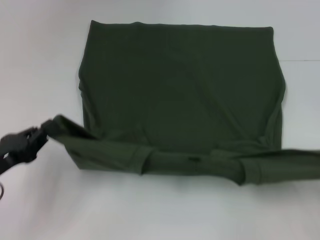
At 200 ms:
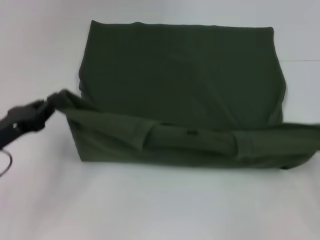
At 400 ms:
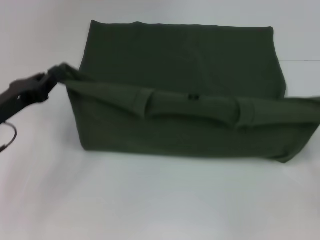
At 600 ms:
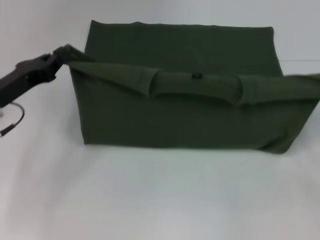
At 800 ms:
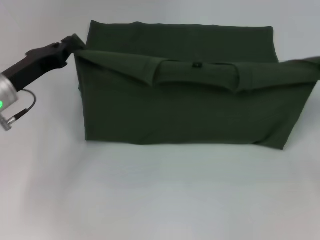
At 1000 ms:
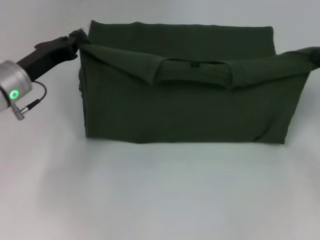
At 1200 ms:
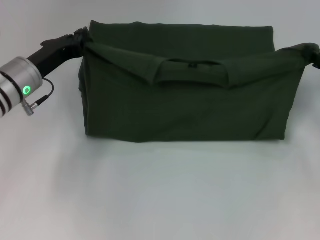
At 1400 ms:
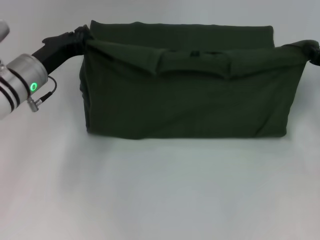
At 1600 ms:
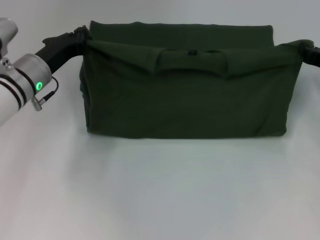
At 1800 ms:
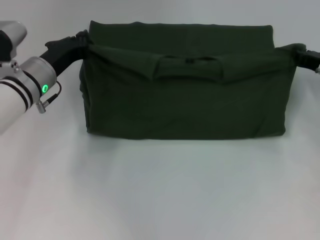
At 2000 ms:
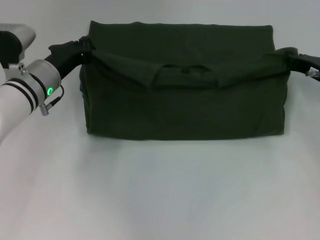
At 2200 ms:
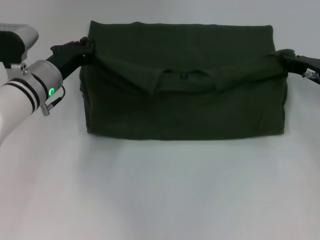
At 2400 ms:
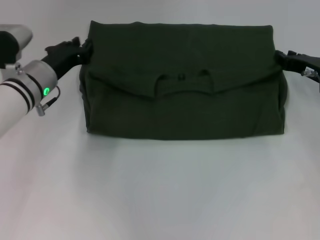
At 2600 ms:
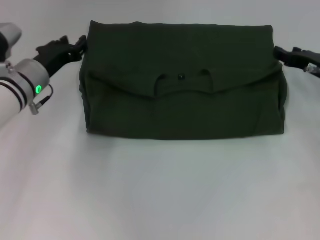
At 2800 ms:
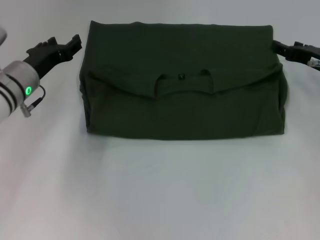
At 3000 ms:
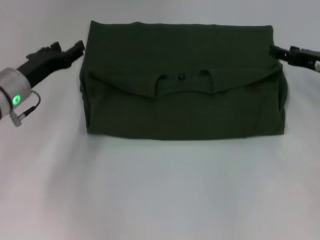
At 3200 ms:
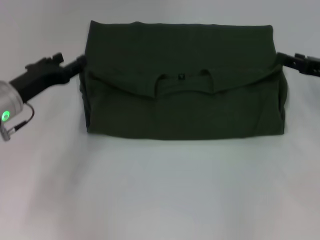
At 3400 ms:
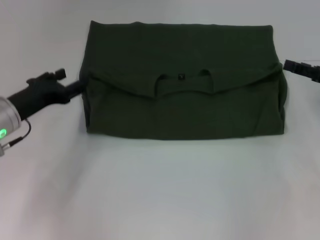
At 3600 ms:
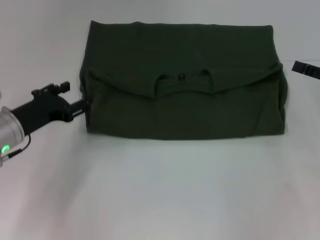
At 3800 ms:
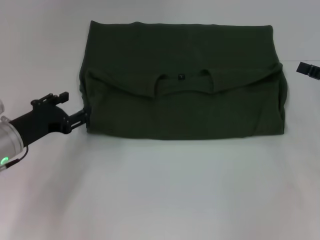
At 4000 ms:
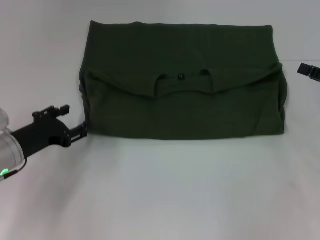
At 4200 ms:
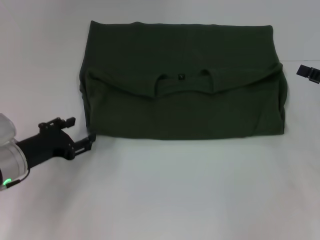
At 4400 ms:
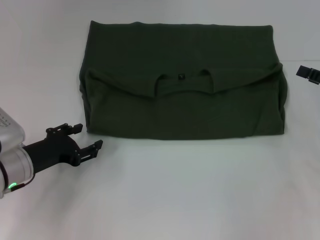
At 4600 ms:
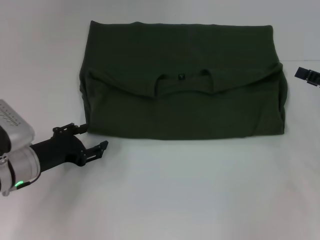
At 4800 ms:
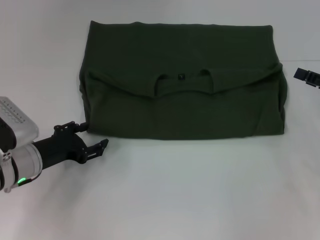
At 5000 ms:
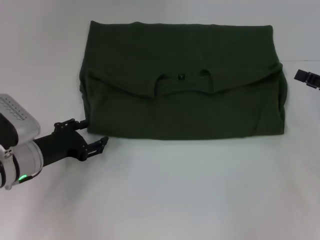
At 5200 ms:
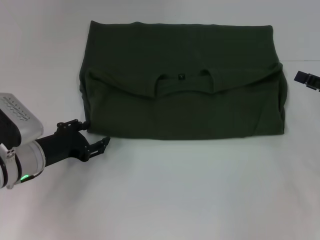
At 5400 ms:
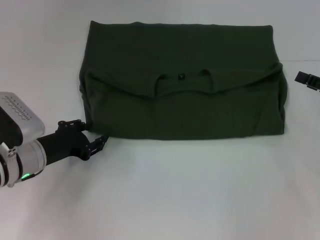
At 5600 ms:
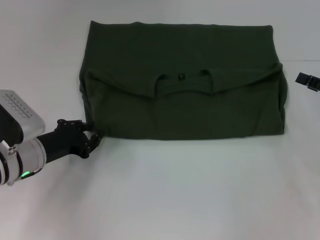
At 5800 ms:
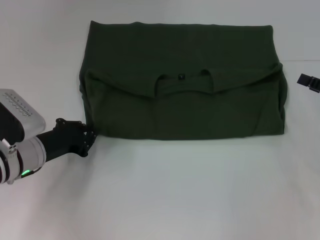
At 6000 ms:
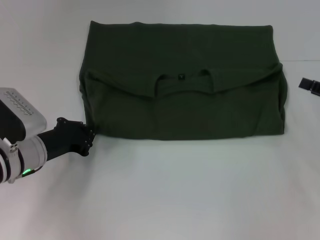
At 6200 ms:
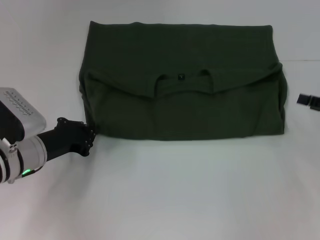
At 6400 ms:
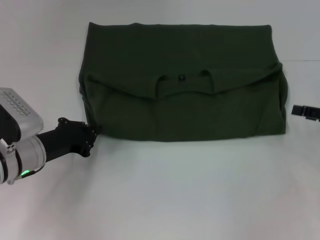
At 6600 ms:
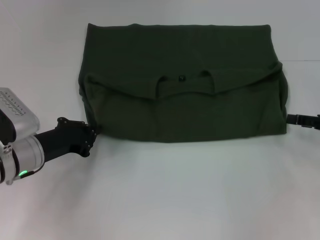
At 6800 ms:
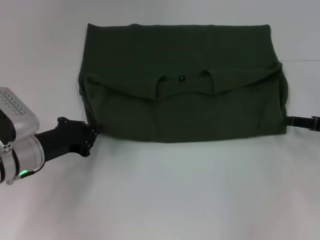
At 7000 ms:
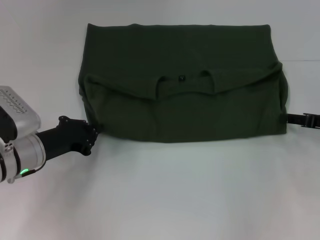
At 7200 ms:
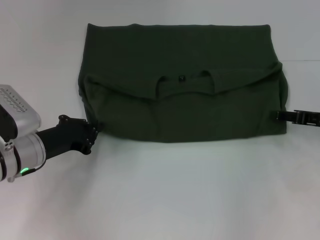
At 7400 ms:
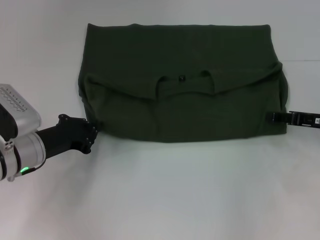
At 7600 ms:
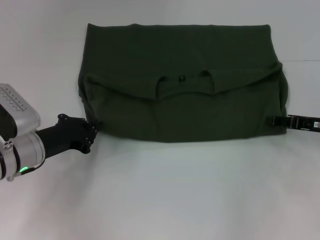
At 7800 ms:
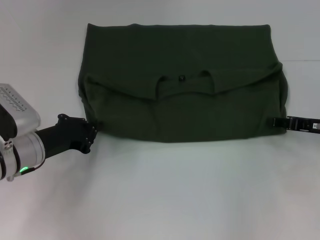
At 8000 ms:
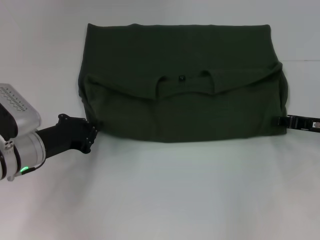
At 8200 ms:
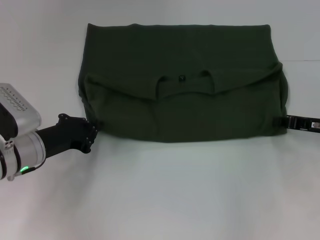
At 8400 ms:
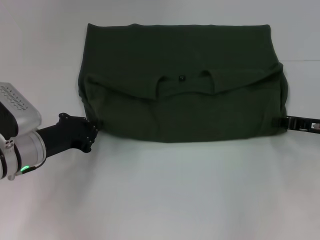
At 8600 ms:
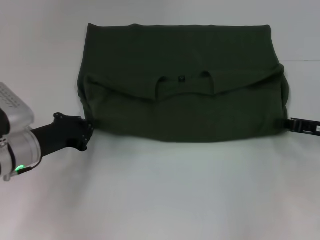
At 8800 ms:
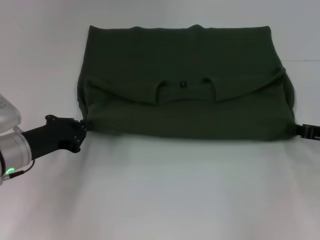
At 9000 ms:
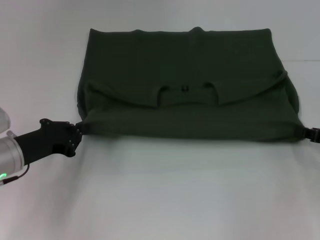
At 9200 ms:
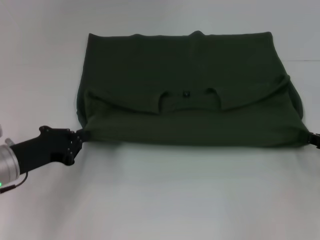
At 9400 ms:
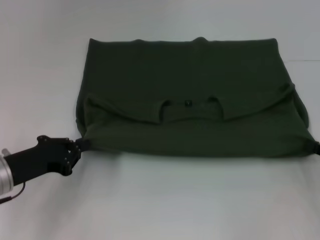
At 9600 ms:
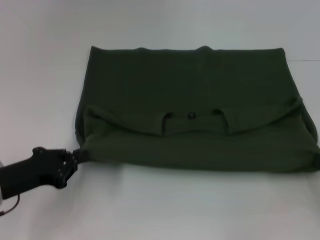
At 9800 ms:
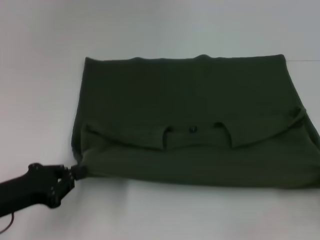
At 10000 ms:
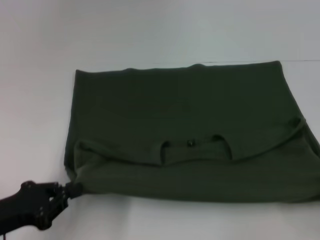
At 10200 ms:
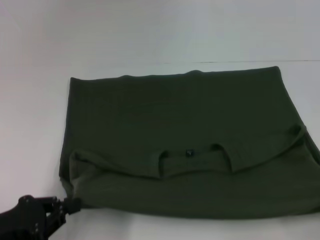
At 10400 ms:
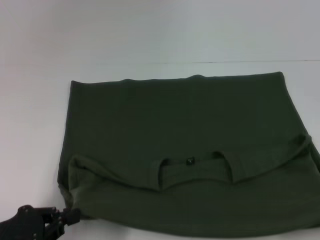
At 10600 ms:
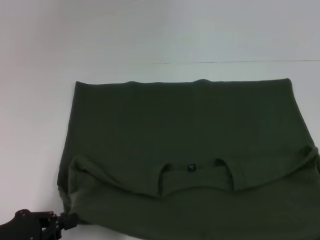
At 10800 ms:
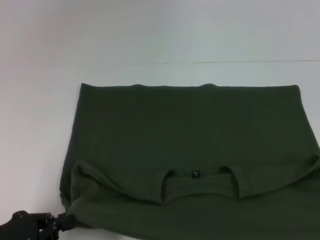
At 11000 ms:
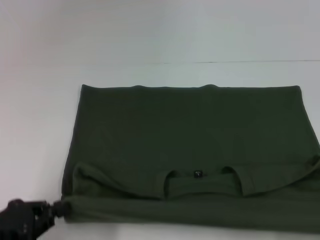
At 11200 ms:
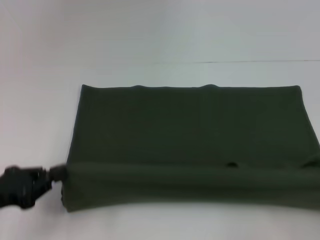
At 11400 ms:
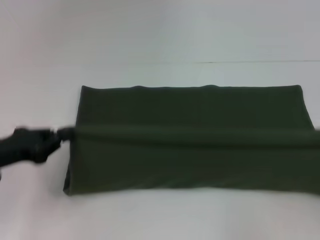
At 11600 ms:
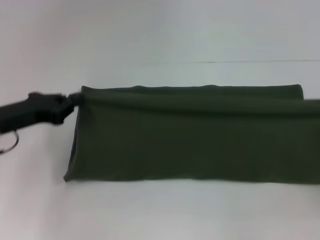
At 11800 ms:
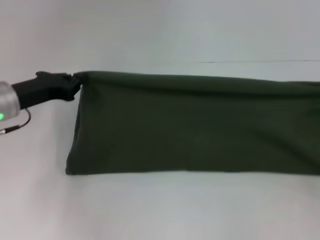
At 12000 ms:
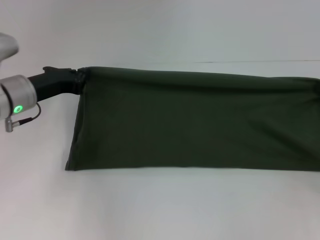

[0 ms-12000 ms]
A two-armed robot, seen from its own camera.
Step, 0 ms to 2600 ms: Fold the clothes with your left hand.
Step, 0 ms to 2600 ms: Fold the clothes with your right hand.
Step, 2800 ms to 10200 ms: Pull the clothes with your left hand.
Step, 2800 ms to 10200 ms: Pull the clothes with your right hand.
0 ms to 1600 ms: The right gripper moves forward, roughly 20 cm. Meanwhile the left gripper shifts some 20 cm forward and to the right.
1600 ms to 3000 ms: The right gripper opens its fingers. Meanwhile the left gripper opens.
3000 ms to 4400 ms: The left gripper travels backward and downward by some 10 cm; the right gripper is displaced backward and to the right by some 10 cm.
4400 ms to 6000 ms: The left gripper closes its fingers.
6000 ms to 7600 ms: The right gripper changes place by approximately 5 cm.
7600 ms to 9000 ms: The right gripper changes place by about 5 cm, and closes up.
9000 ms to 10400 ms: Both grippers travel together backward, about 15 cm.
10400 ms to 12000 ms: Both grippers move forward, roughly 20 cm.

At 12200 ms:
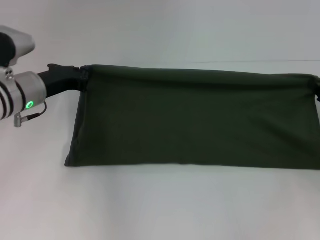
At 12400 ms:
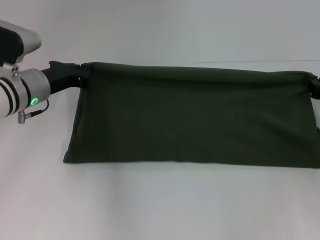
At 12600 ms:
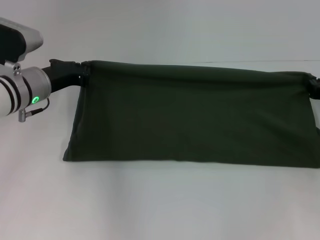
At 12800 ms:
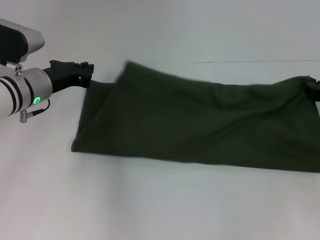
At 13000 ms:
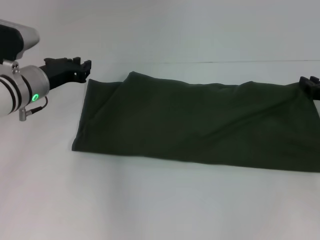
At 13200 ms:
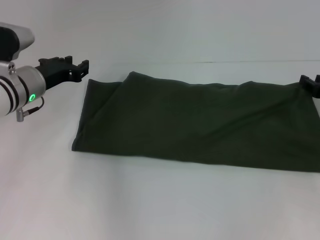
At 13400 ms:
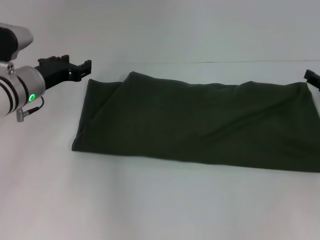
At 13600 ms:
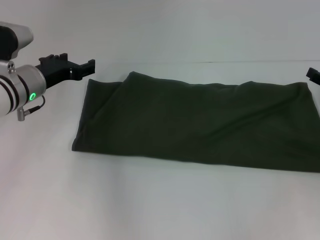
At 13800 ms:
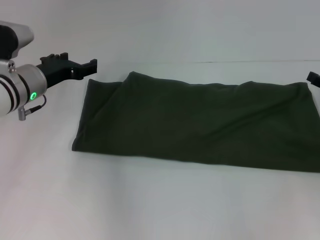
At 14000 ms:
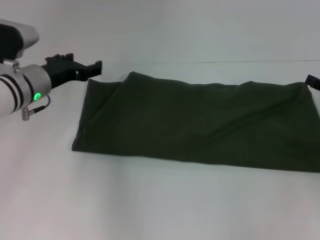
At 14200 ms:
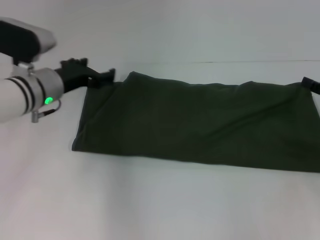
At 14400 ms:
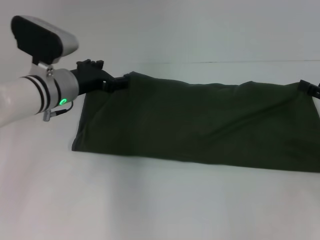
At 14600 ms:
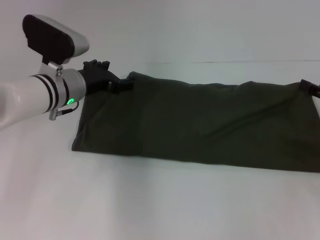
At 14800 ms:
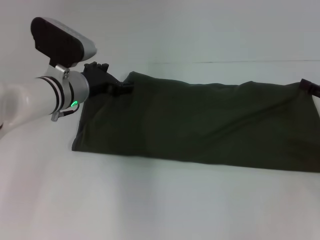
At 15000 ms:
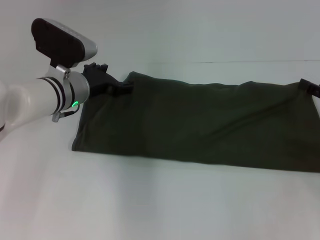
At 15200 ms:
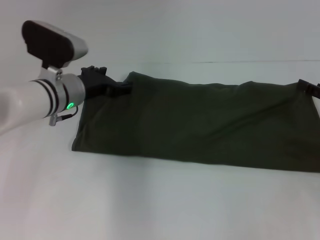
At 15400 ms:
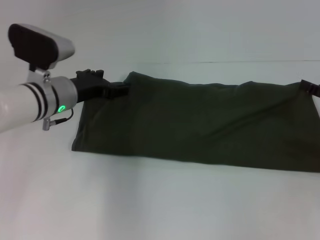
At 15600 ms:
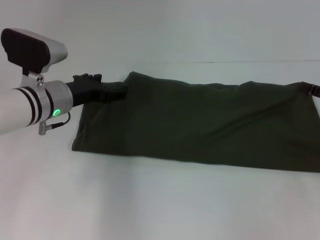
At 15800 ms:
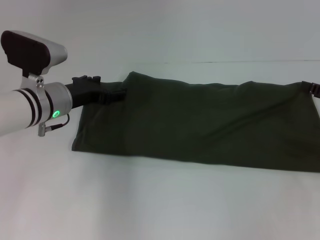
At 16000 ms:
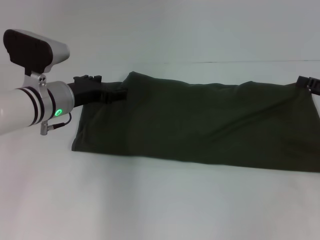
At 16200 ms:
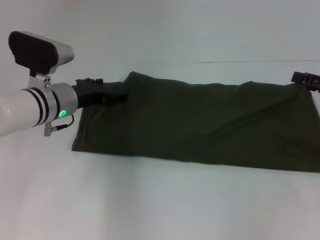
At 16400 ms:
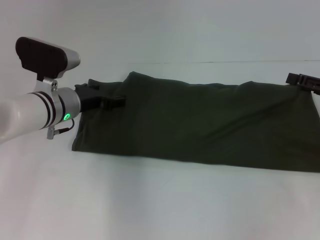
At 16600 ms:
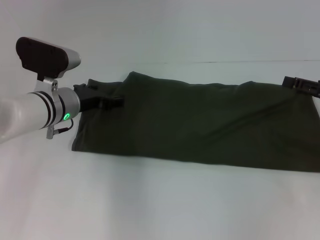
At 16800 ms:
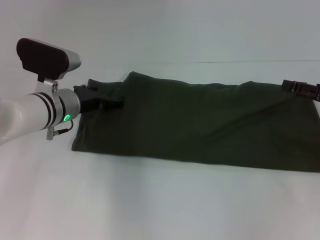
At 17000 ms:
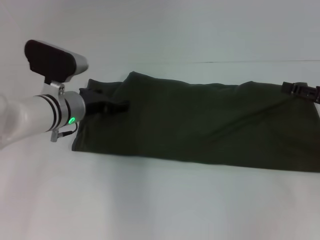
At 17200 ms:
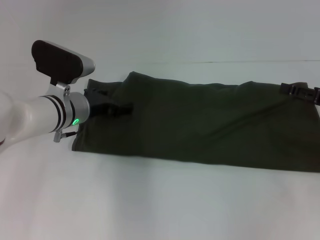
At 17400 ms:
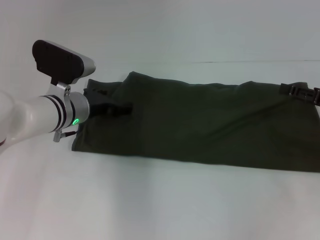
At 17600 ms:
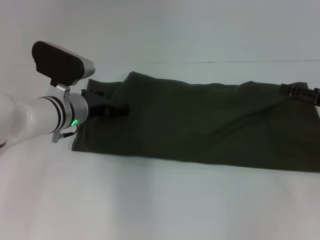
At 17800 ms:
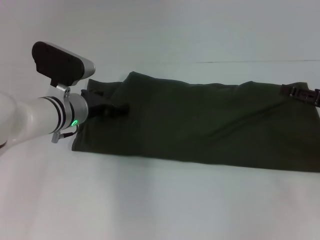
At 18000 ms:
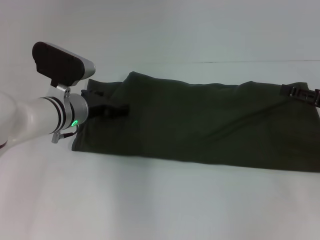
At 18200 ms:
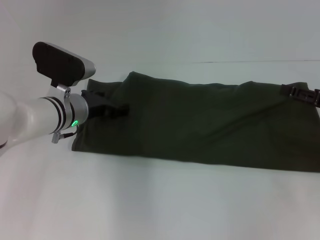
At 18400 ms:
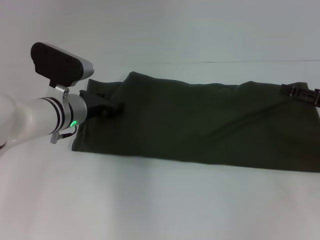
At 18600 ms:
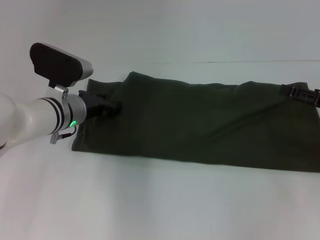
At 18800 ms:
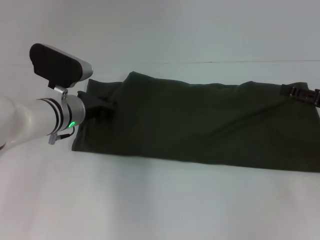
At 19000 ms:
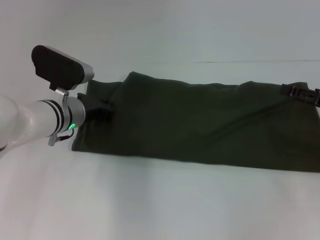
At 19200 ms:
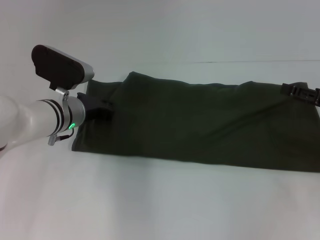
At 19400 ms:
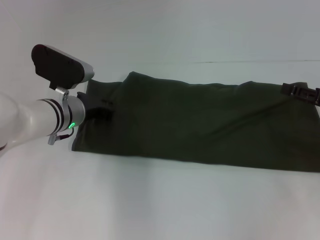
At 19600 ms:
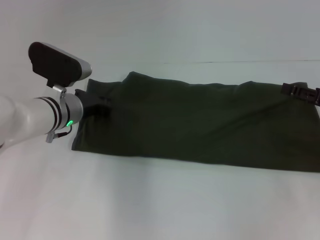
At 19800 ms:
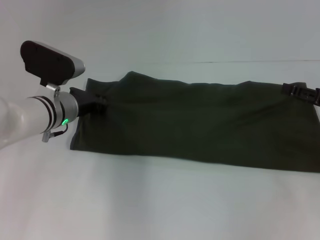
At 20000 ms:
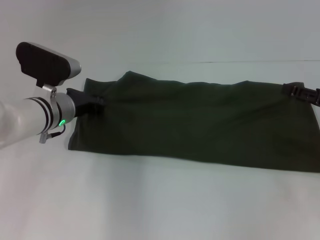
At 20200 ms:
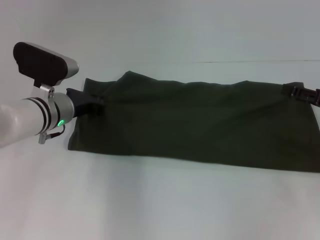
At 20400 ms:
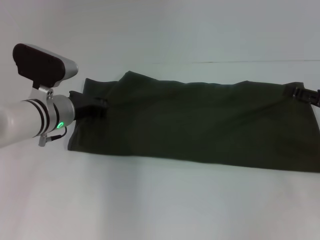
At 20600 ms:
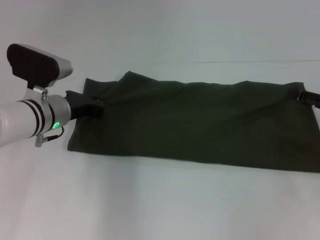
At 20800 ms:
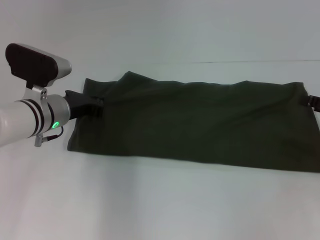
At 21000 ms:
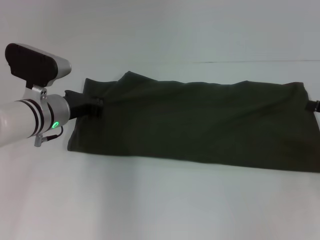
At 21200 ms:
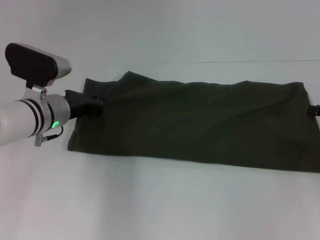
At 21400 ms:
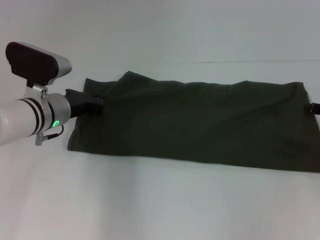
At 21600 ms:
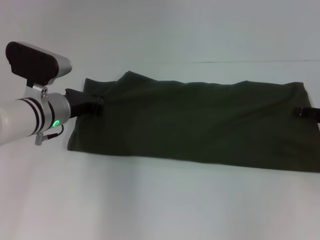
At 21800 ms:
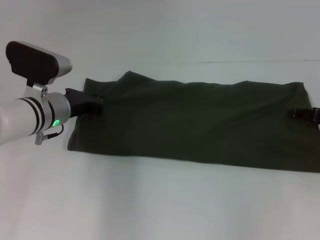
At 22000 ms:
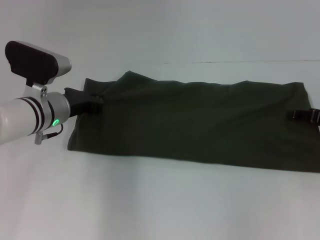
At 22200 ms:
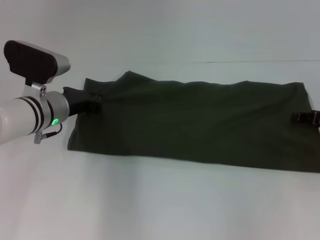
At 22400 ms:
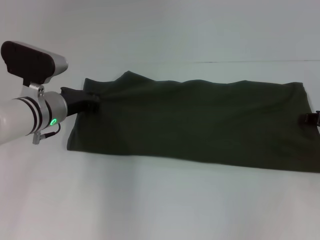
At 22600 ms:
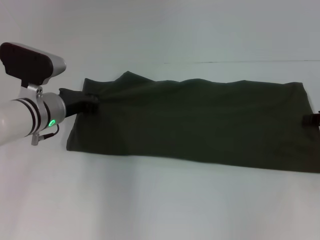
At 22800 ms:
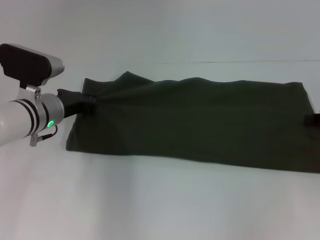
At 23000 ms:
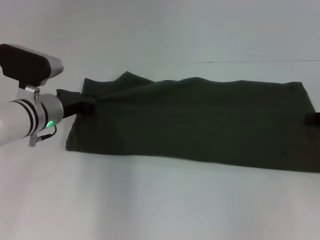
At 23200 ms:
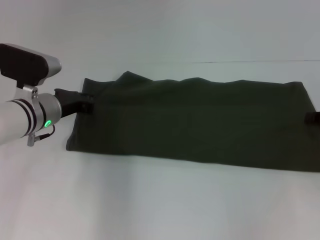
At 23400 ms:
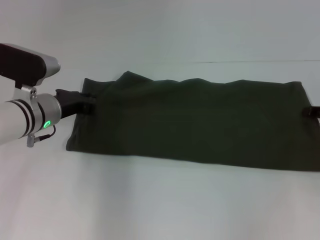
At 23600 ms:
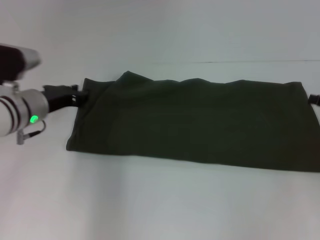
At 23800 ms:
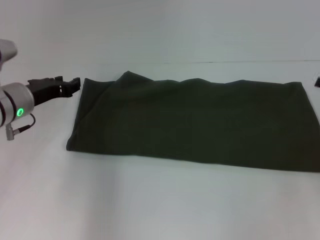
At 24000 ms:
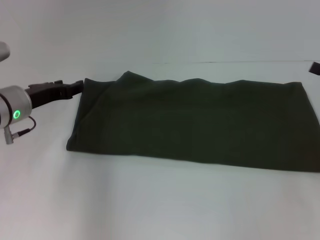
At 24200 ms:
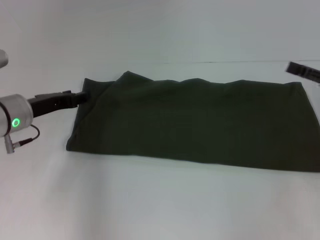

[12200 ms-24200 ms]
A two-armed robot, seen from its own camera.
12200 ms to 13800 ms: The right gripper opens up; the left gripper opens.
13800 ms to 15200 ms: The left gripper shifts approximately 5 cm to the right.
15200 ms to 18200 ms: The grippers stay close to where they were, moving slightly.
18200 ms to 19800 ms: The left gripper closes up.
19800 ms to 21200 ms: There are only small adjustments of the grippers.
21200 ms to 22600 ms: The right gripper closes up.
22600 ms to 24200 ms: The right gripper opens up, while the left gripper ends up approximately 5 cm from where it was, and opens up.
